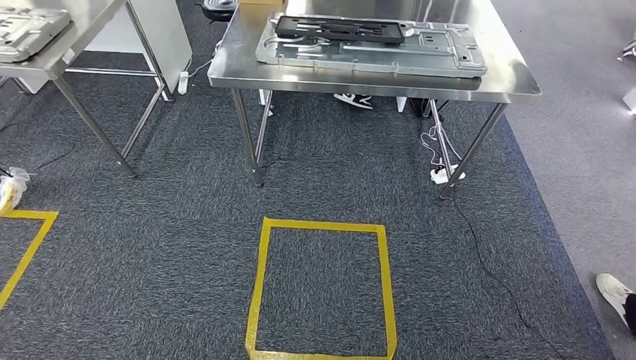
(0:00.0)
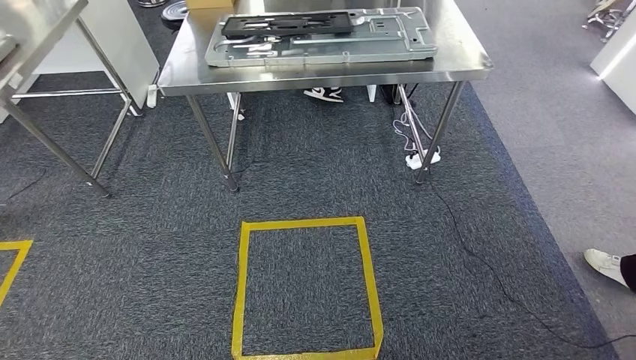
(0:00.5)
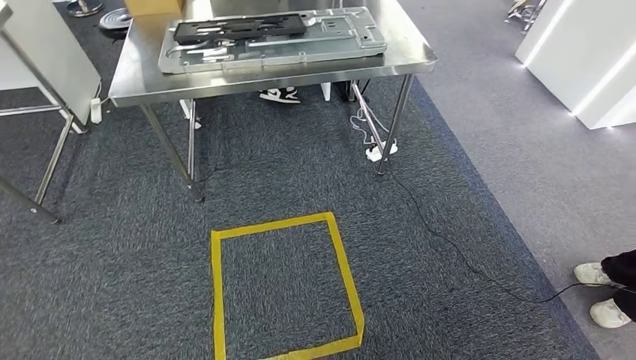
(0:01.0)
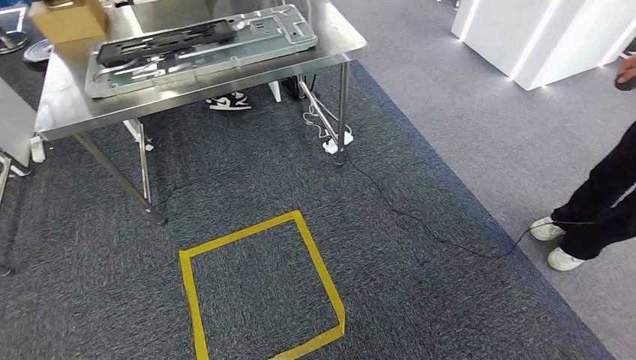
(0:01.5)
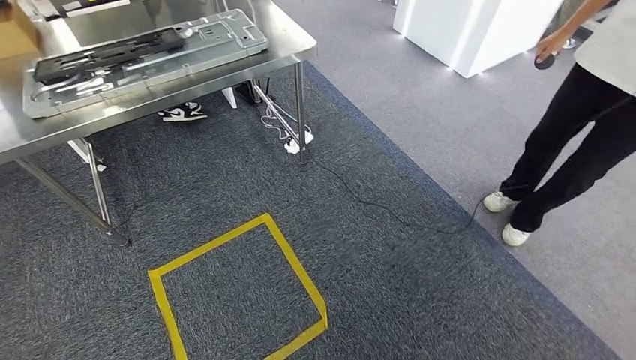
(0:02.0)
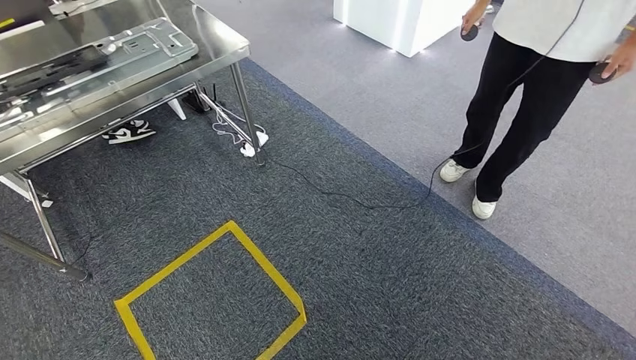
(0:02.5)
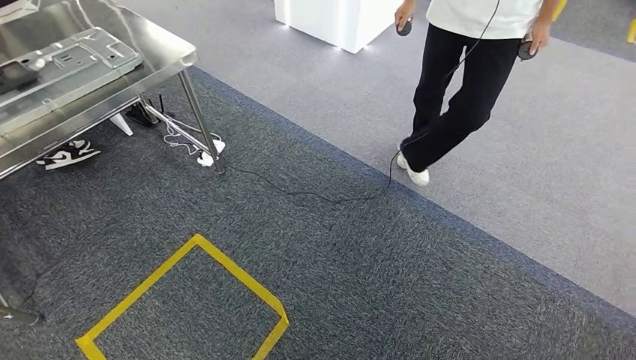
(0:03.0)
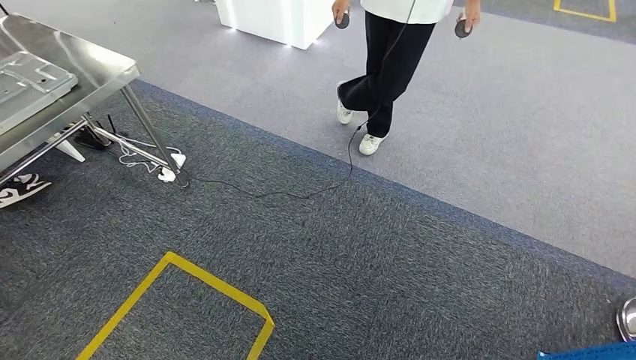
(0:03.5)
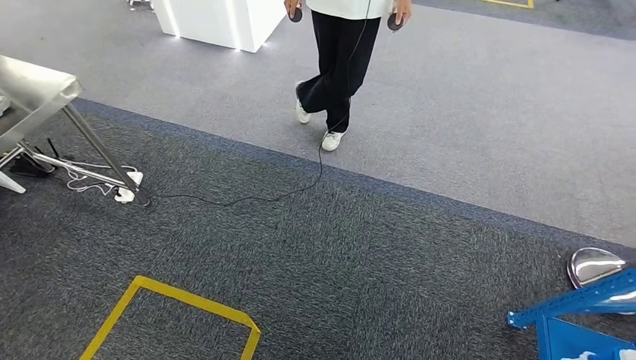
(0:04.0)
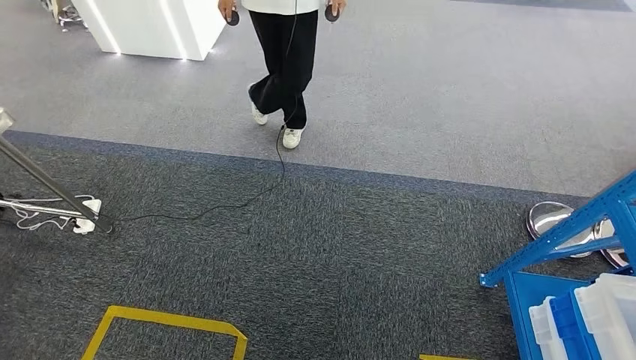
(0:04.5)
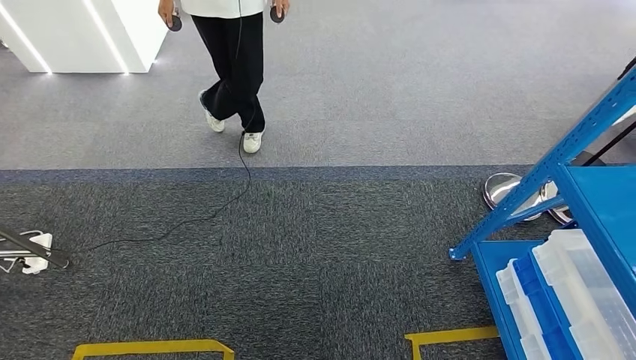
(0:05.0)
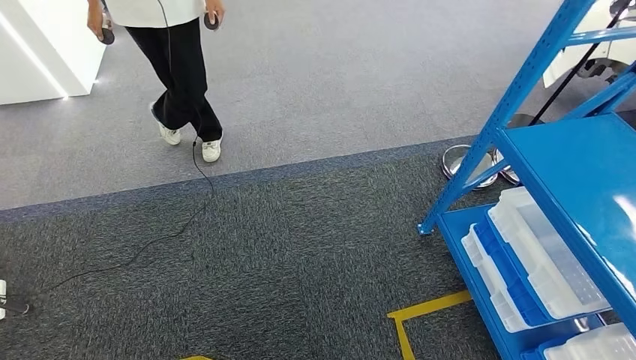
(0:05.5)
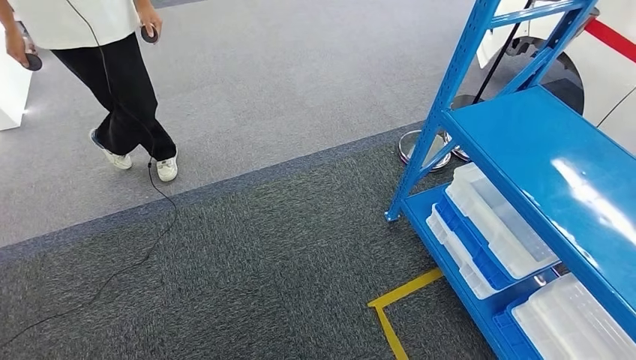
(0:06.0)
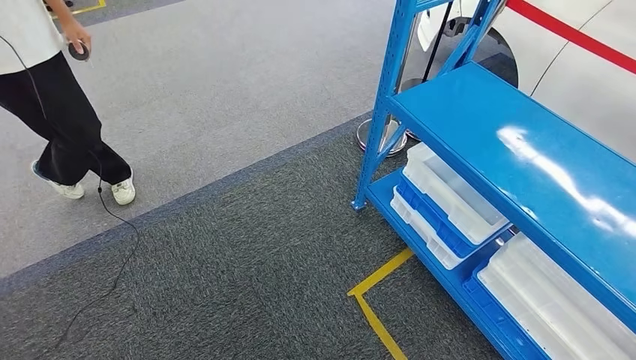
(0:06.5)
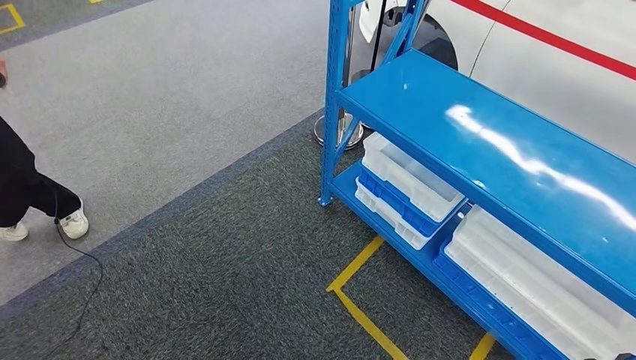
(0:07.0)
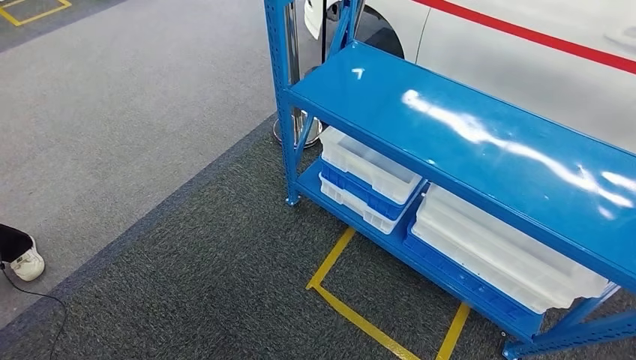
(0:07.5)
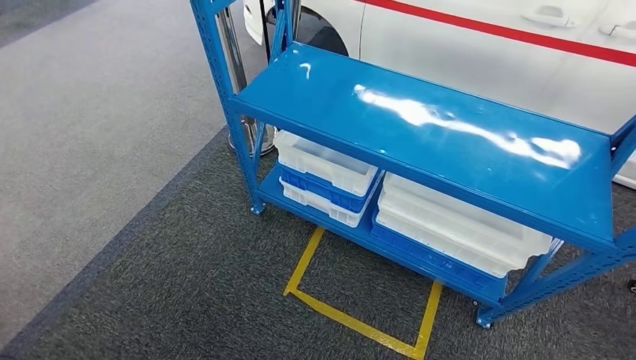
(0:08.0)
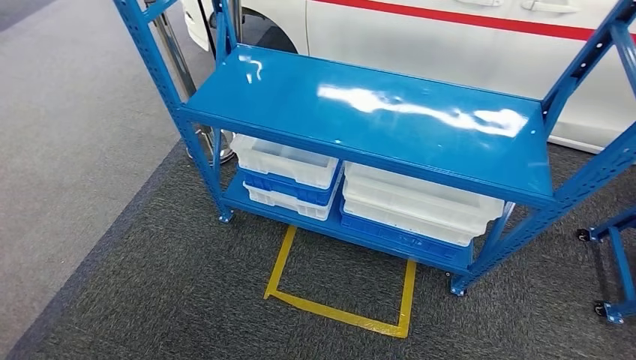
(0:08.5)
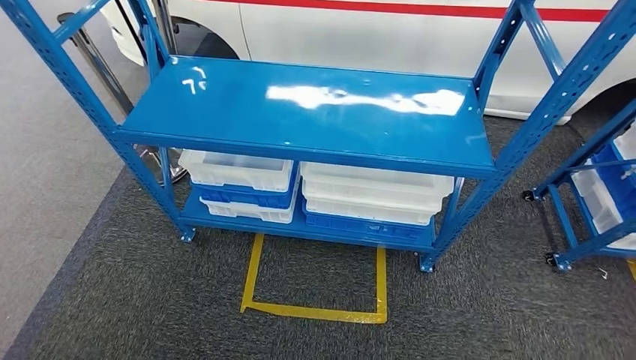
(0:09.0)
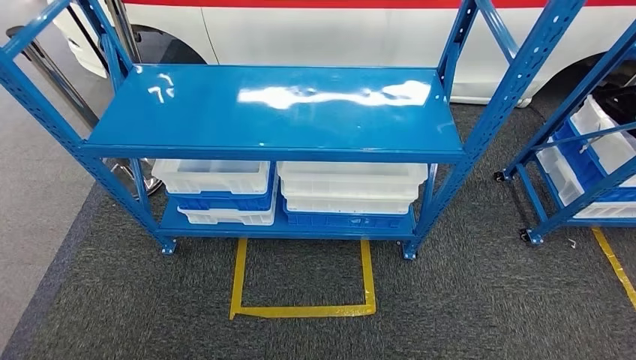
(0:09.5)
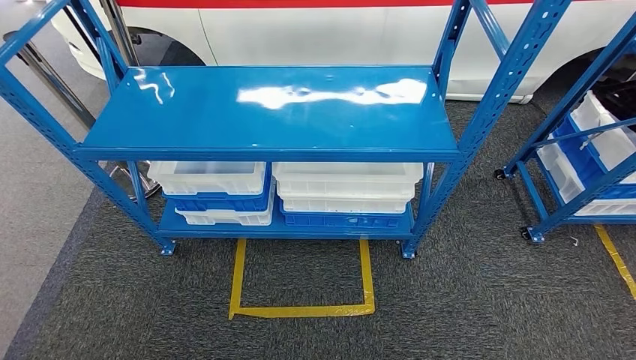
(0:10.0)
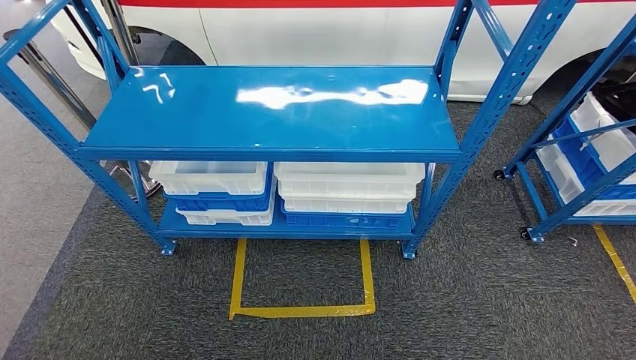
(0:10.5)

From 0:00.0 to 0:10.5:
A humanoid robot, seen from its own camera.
Step, from 0:00.0 to 0:10.5: Move to the initial position of the shelf.

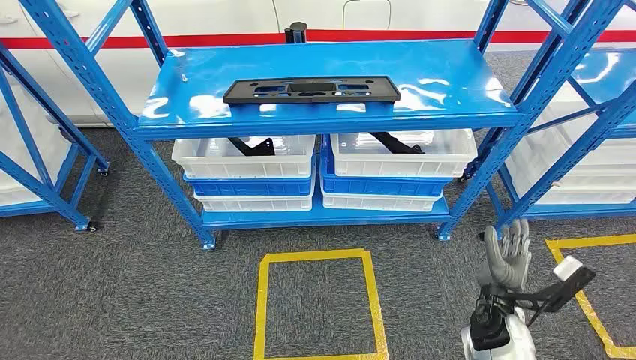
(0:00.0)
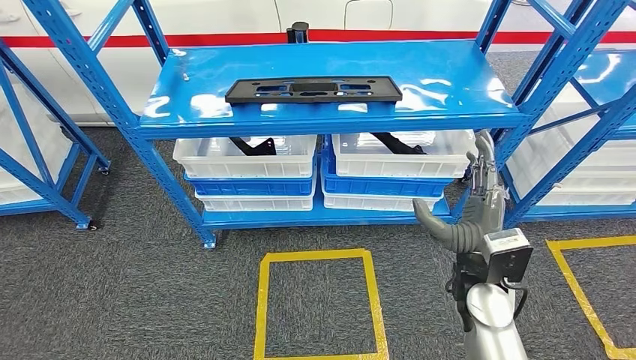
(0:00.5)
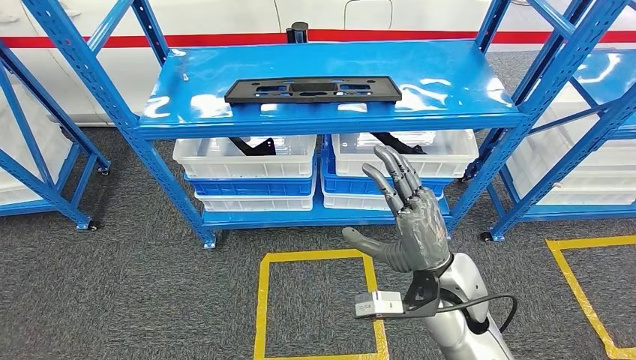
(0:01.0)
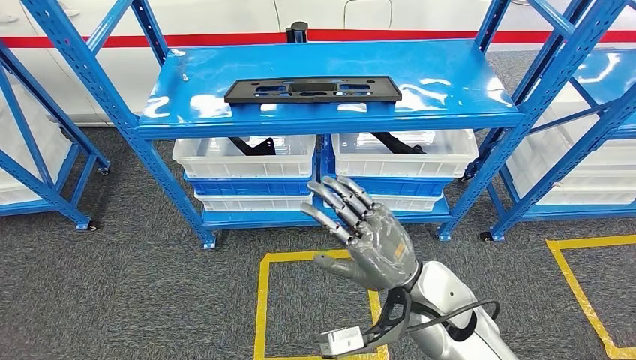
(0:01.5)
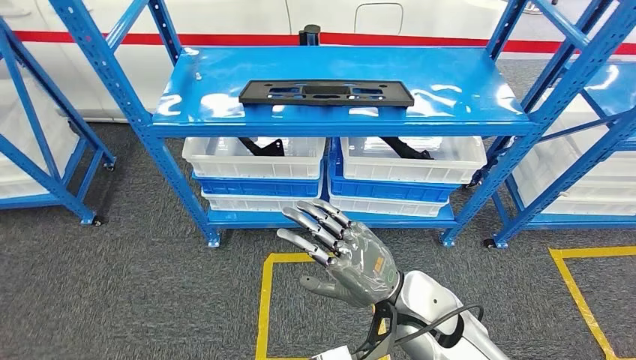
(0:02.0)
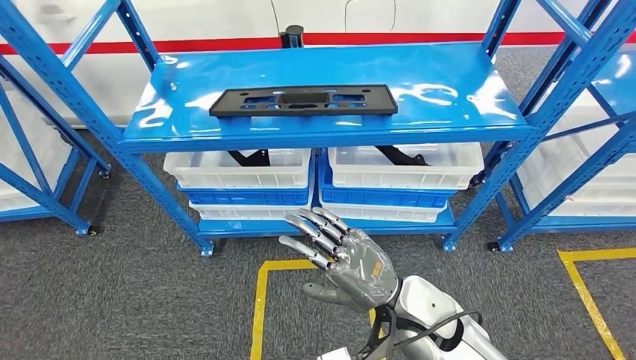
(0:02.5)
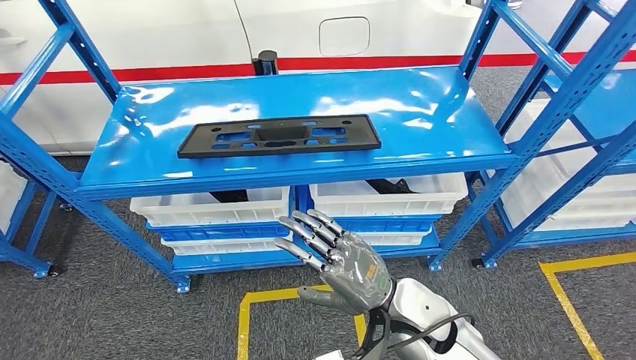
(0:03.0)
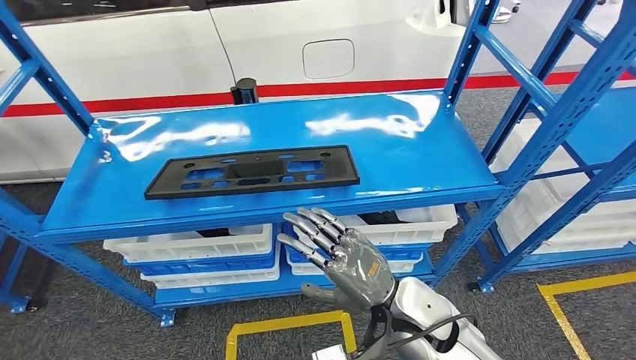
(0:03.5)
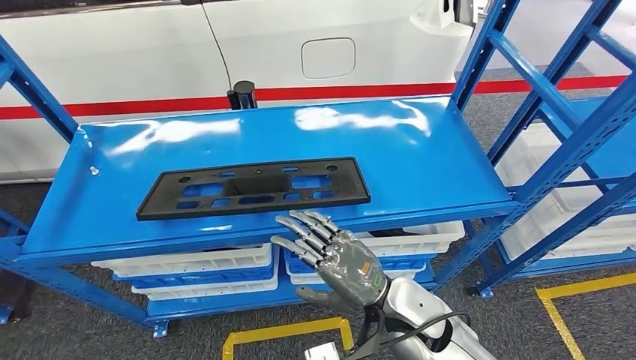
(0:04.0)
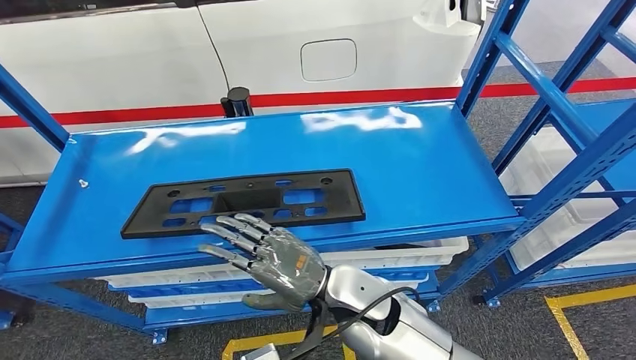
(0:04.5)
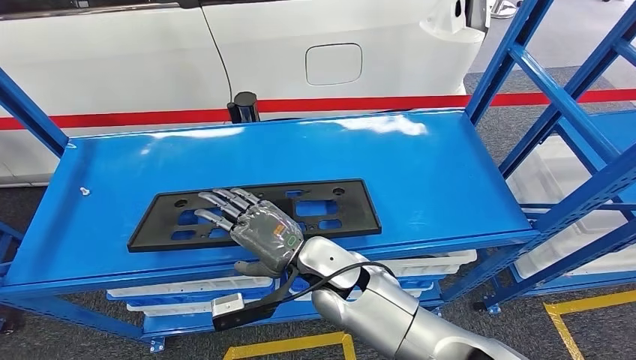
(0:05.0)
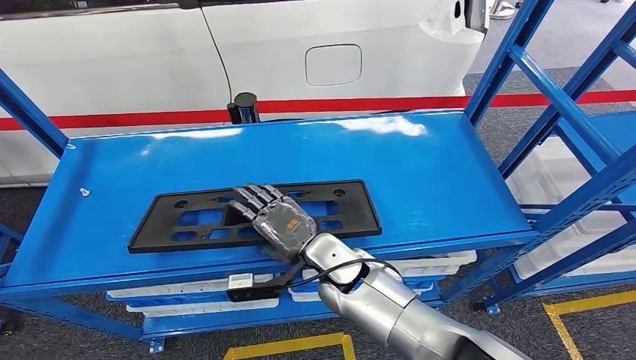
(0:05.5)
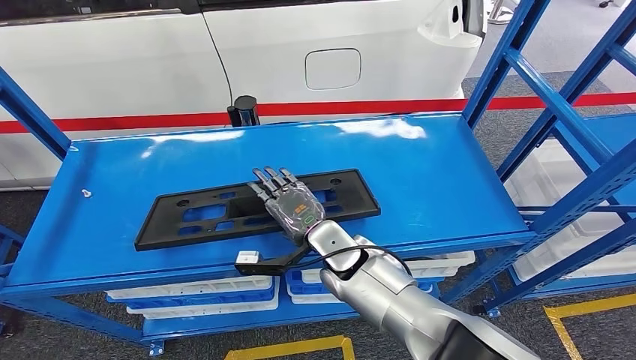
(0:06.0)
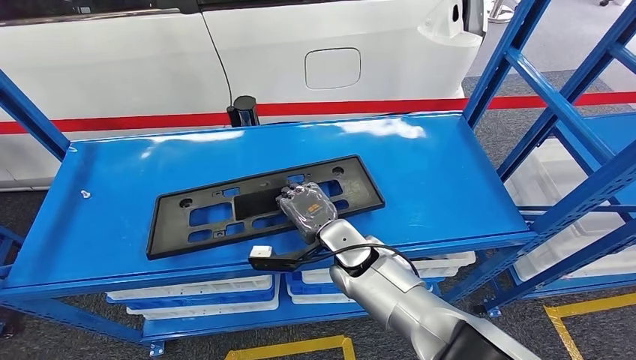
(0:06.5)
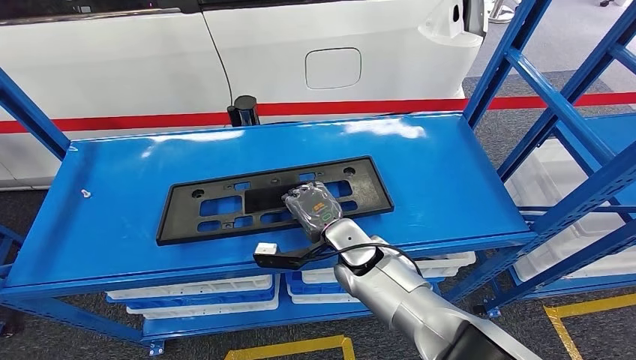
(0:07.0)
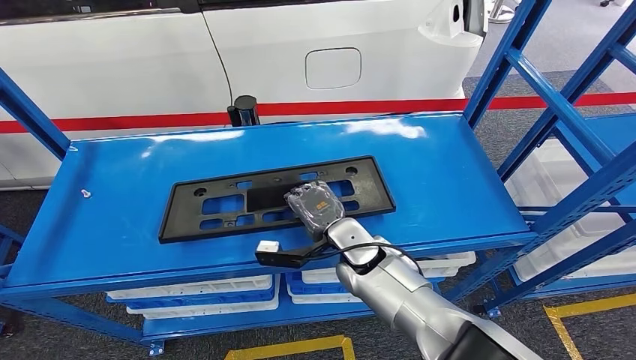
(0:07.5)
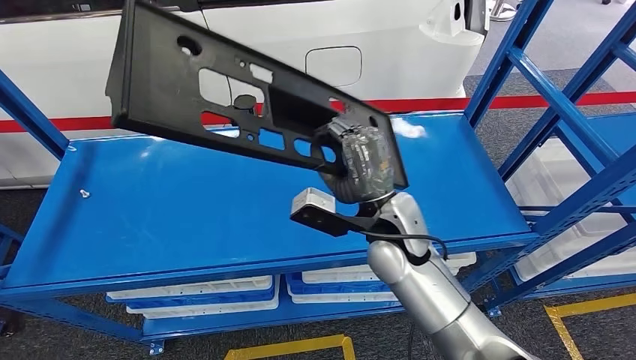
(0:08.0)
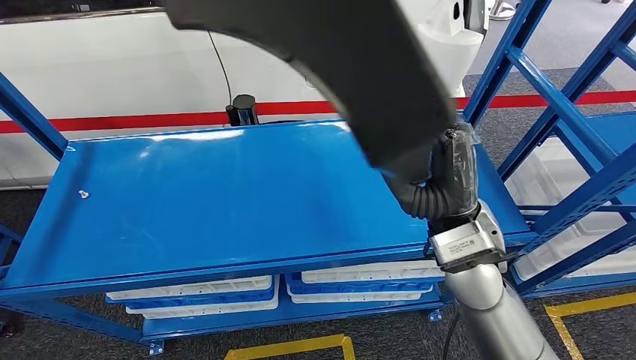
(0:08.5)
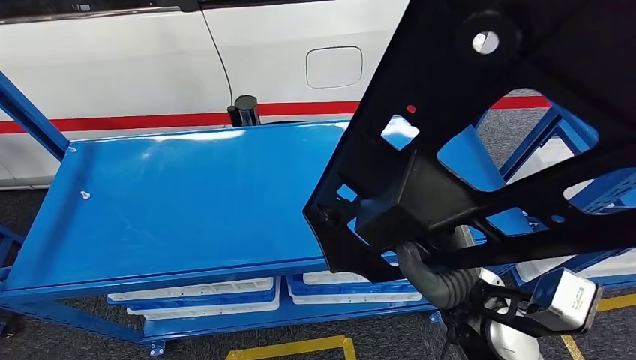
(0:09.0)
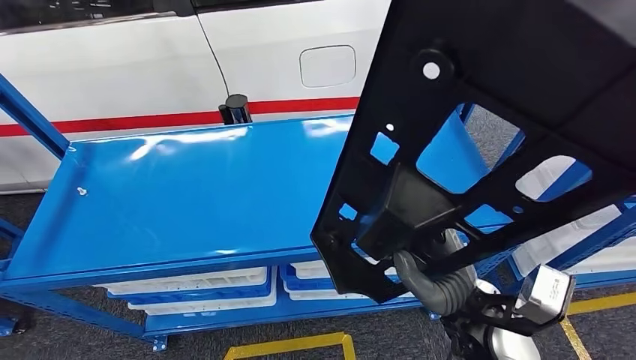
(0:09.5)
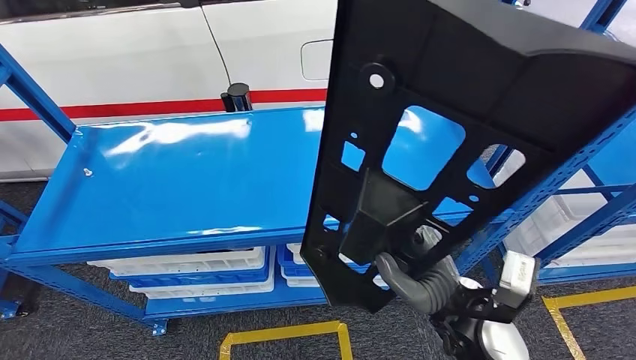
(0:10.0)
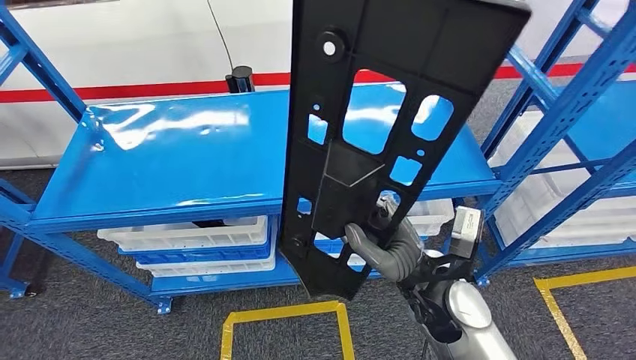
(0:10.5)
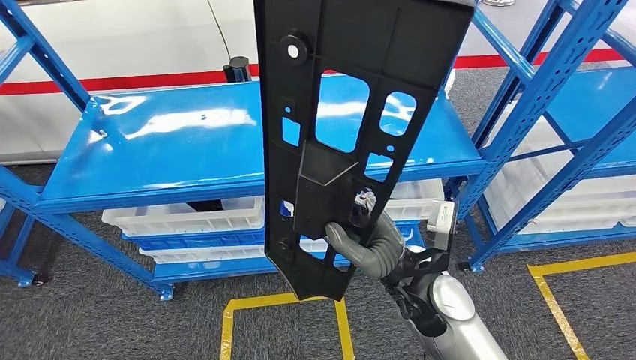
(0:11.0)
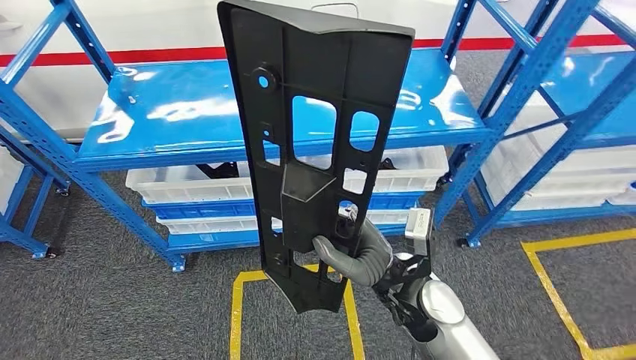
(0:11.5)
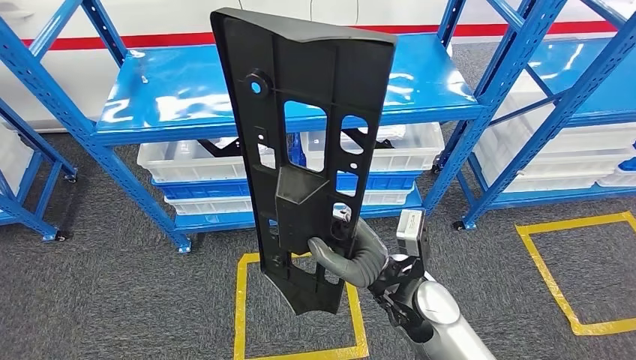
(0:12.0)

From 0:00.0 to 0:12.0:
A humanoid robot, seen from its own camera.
Step, from 0:00.0 to 0:11.0: Pick up the large material from the shelf.
